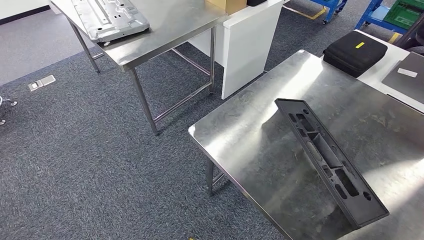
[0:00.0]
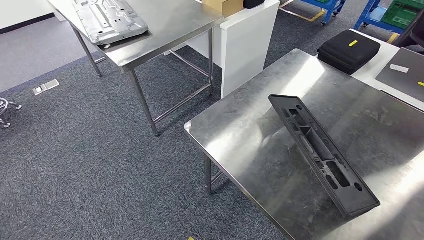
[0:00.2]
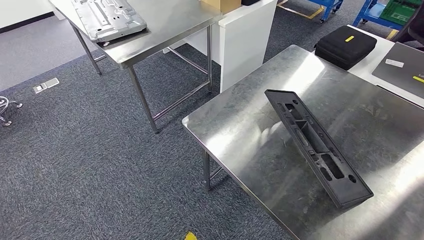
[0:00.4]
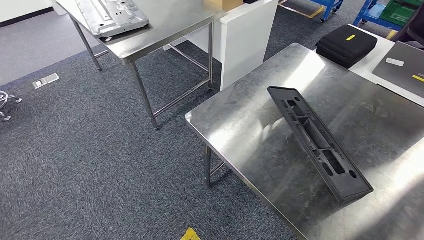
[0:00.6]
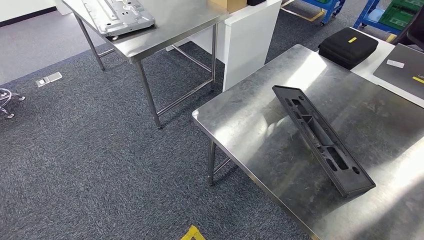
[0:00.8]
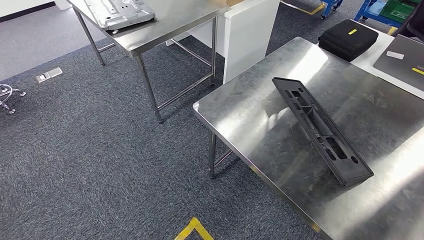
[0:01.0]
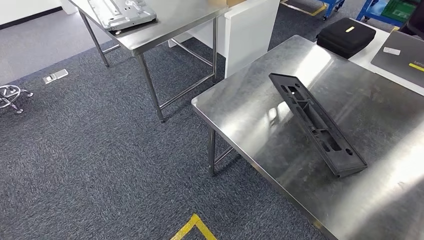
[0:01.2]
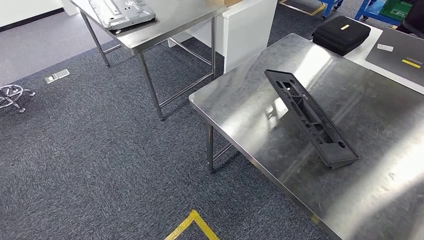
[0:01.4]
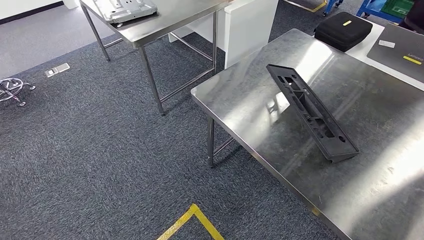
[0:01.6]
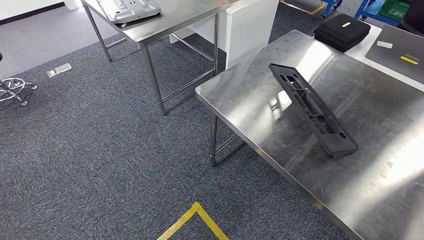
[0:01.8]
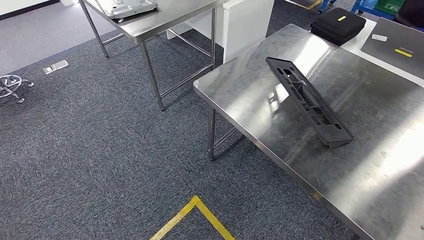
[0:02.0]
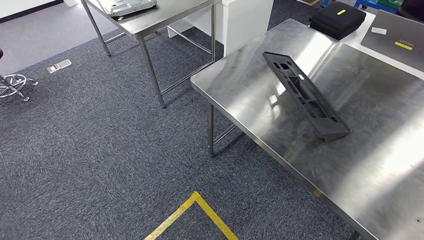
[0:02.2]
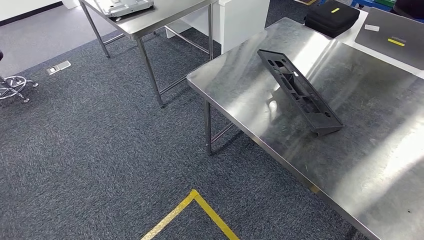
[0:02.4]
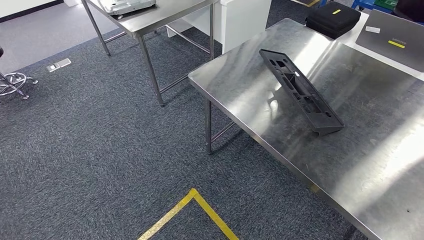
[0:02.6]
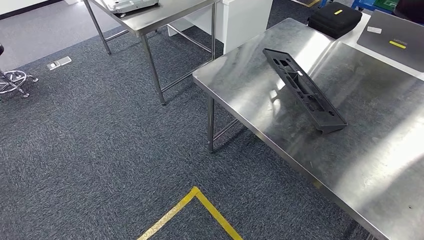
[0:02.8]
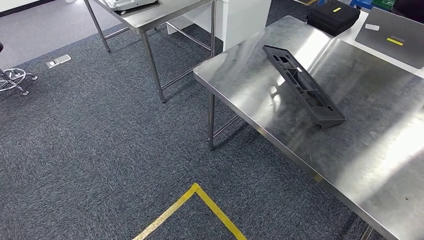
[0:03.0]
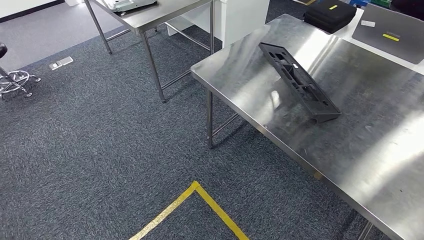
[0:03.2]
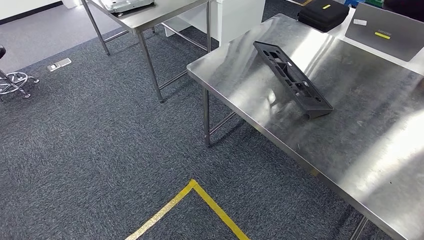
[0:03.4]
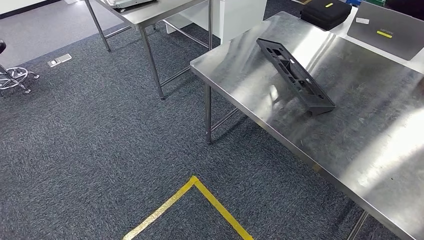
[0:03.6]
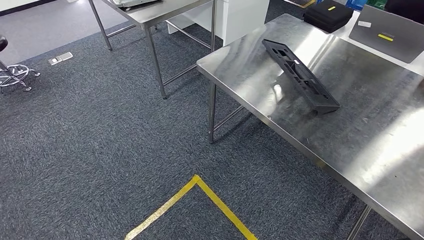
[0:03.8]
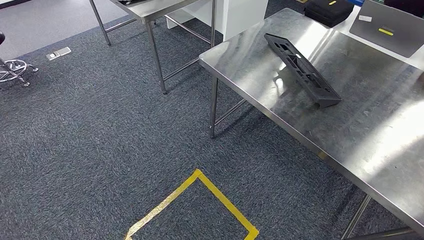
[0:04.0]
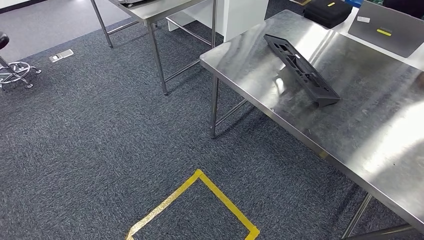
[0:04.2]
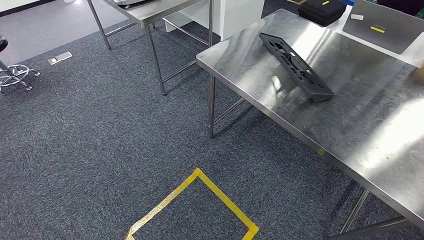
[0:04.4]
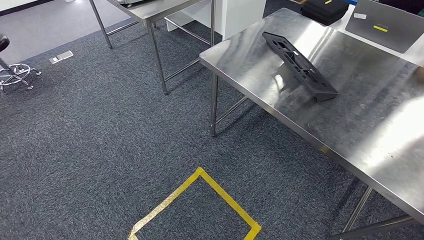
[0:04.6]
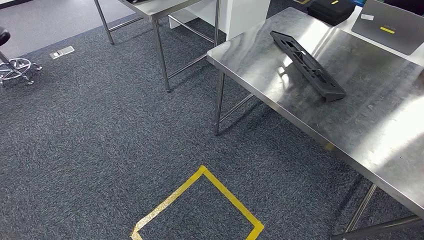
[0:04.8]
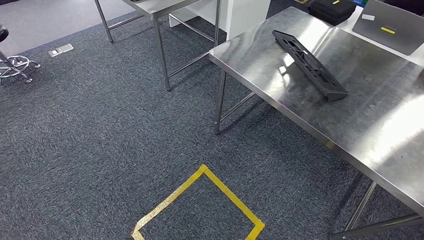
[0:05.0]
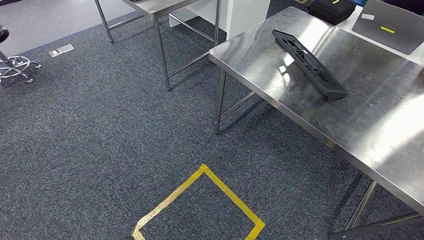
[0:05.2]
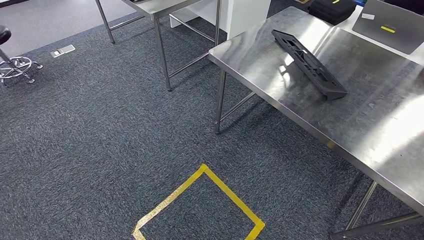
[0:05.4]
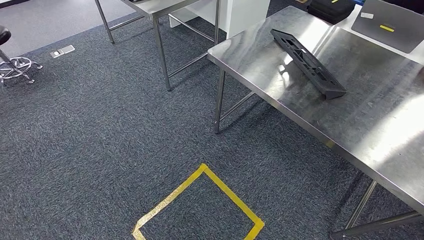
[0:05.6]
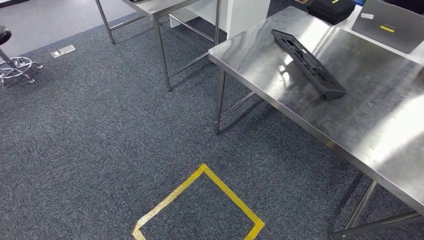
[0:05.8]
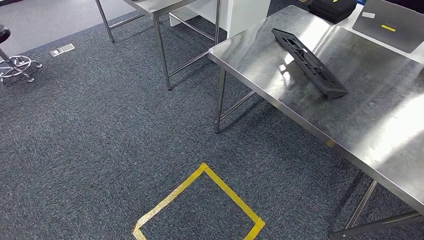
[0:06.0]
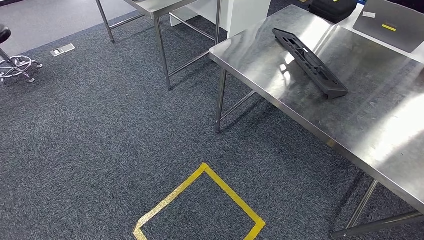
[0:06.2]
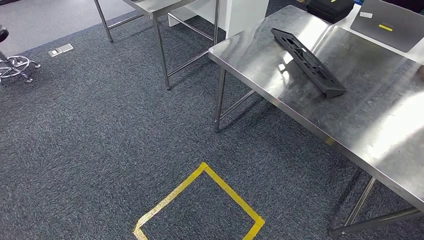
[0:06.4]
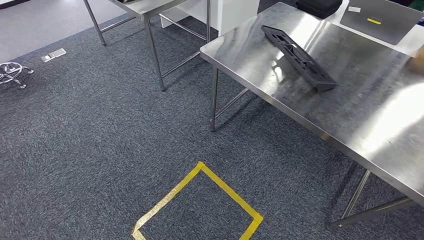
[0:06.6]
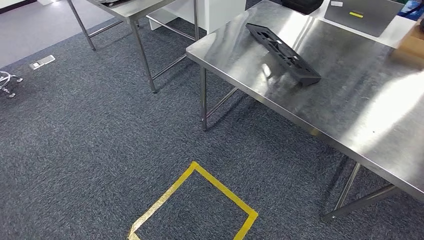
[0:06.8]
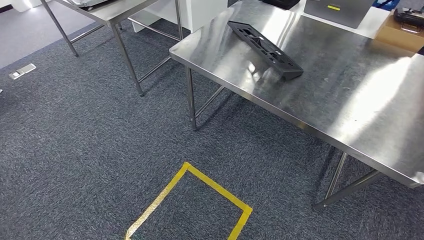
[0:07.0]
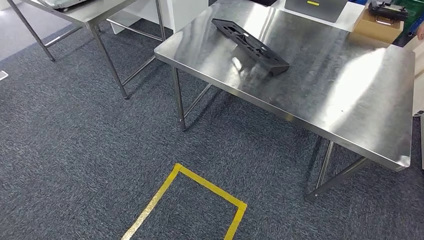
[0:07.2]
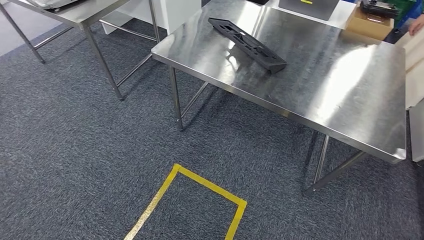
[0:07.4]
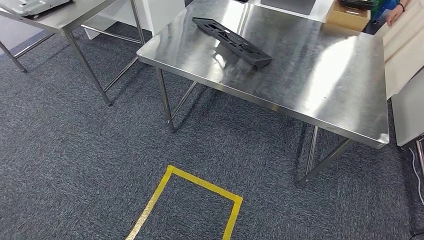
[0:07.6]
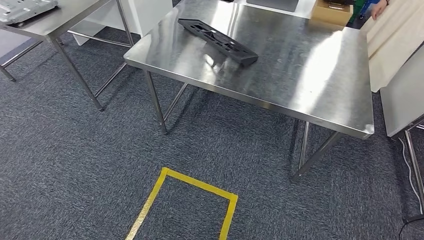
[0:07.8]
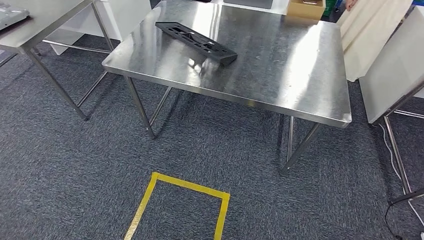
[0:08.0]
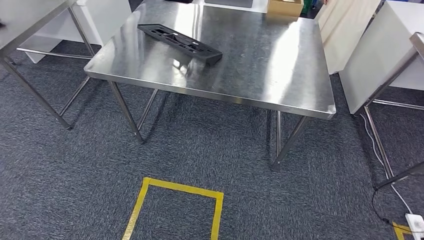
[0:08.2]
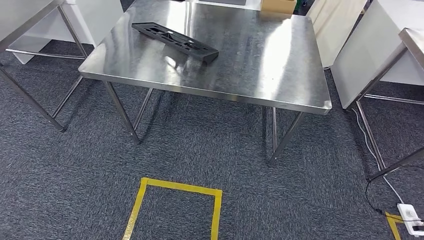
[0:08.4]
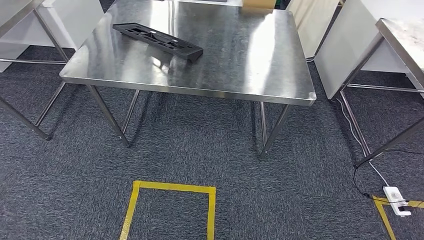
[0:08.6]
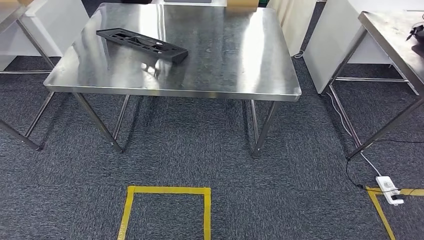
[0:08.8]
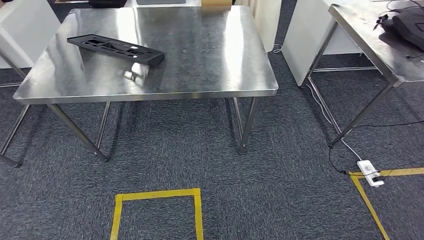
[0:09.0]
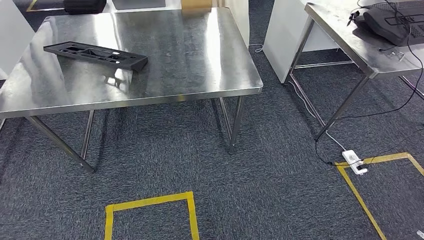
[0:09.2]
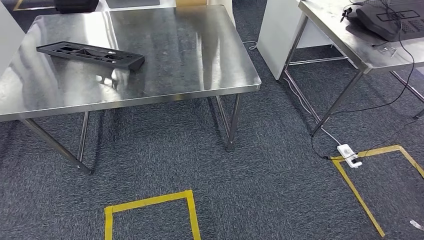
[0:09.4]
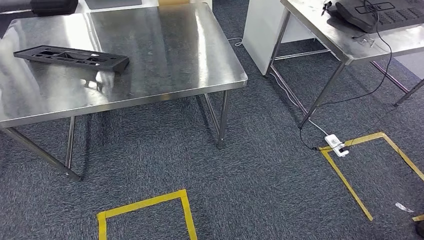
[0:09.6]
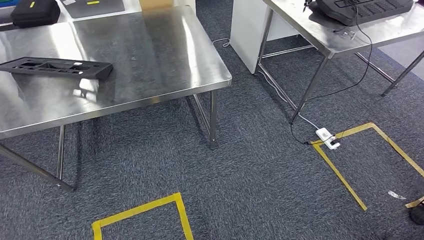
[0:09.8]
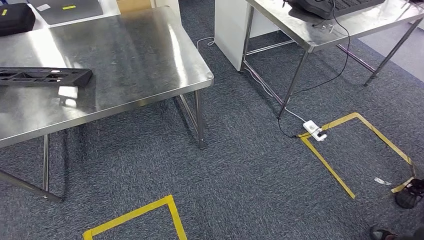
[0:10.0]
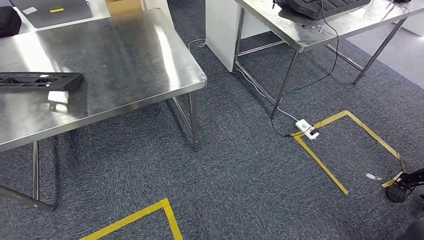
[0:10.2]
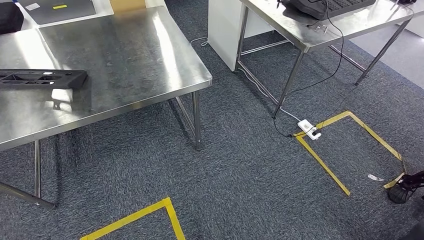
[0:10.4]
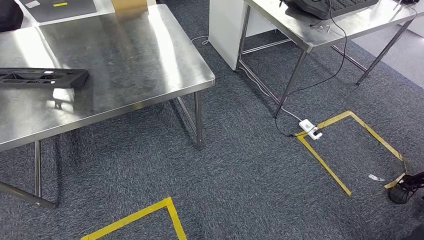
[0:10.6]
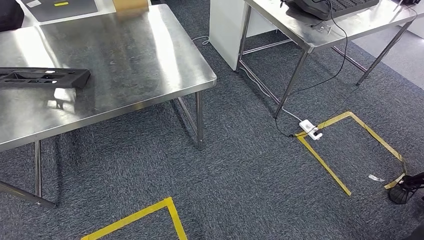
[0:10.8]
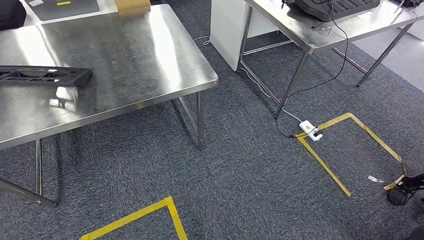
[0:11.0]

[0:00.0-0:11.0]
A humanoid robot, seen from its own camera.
Step, 0:00.0 to 0:11.0: Return to the initial position at the shelf.
0:04.8 to 0:06.2: The right hand moves to the left, forward and downward, some 15 cm.
